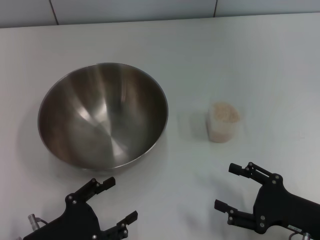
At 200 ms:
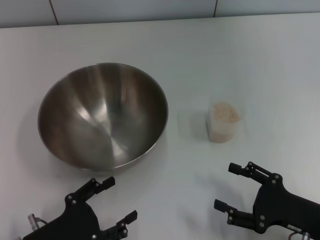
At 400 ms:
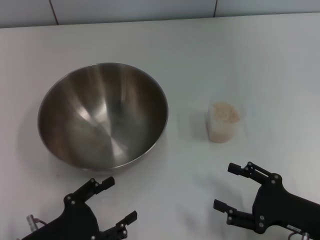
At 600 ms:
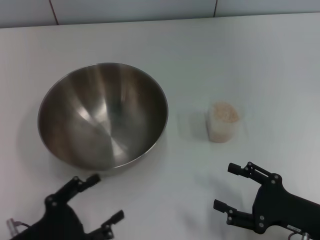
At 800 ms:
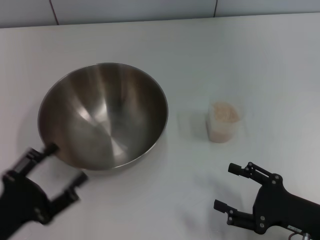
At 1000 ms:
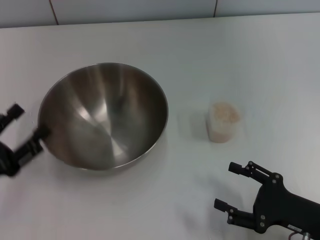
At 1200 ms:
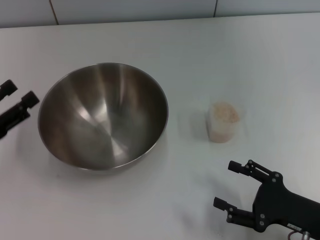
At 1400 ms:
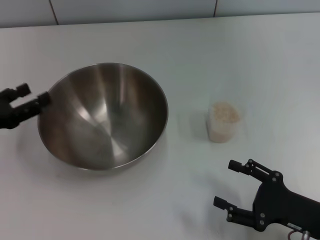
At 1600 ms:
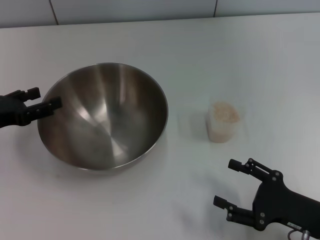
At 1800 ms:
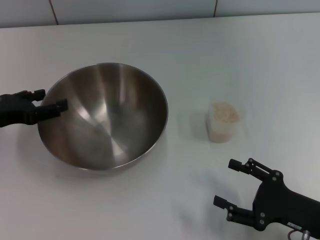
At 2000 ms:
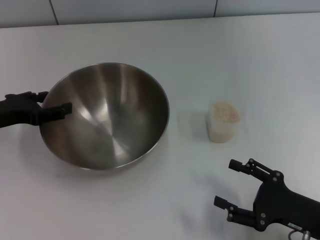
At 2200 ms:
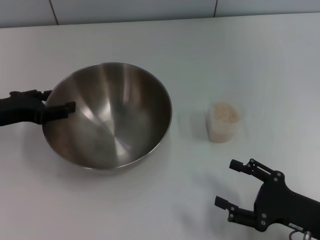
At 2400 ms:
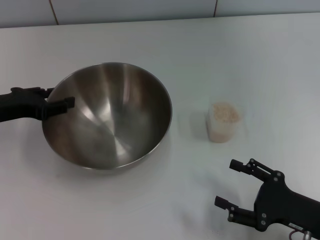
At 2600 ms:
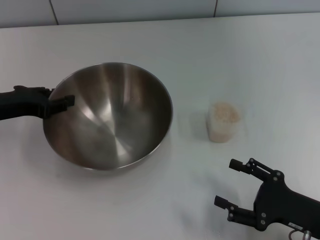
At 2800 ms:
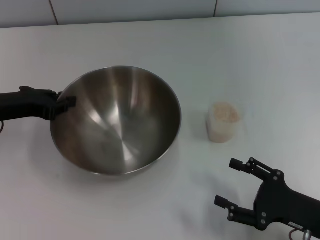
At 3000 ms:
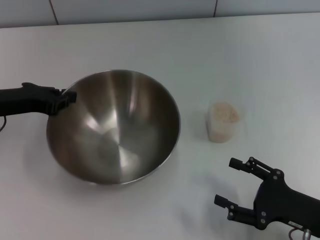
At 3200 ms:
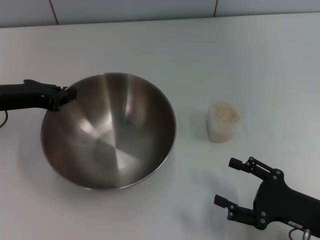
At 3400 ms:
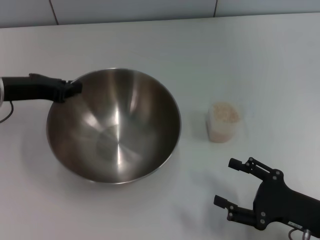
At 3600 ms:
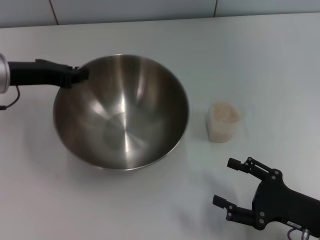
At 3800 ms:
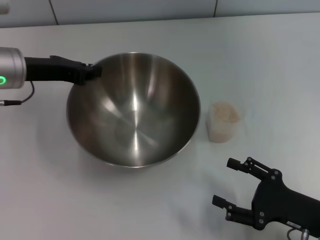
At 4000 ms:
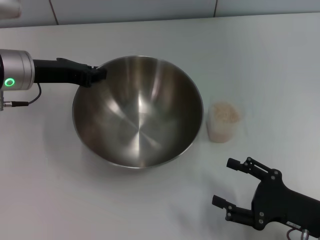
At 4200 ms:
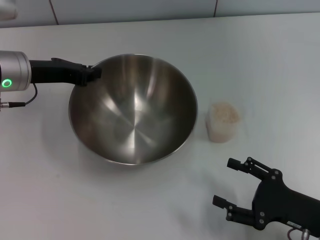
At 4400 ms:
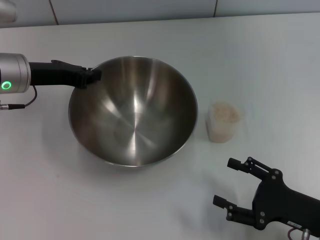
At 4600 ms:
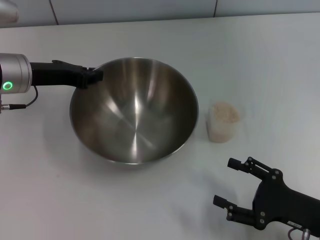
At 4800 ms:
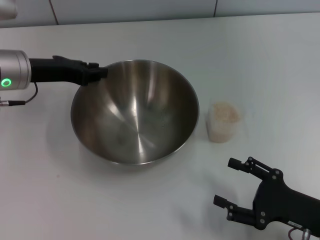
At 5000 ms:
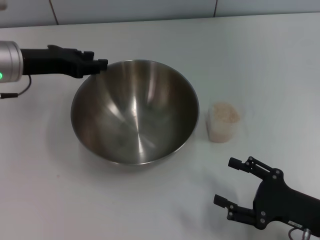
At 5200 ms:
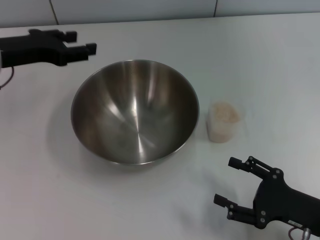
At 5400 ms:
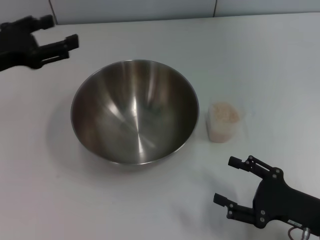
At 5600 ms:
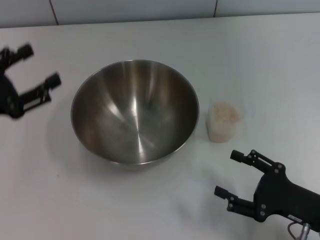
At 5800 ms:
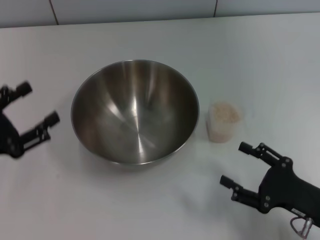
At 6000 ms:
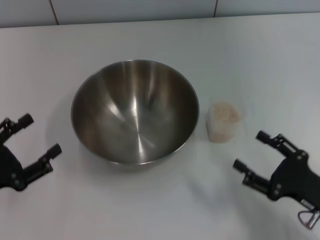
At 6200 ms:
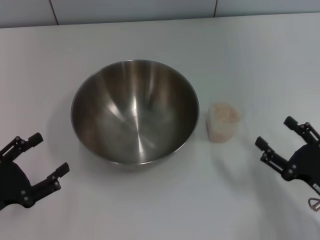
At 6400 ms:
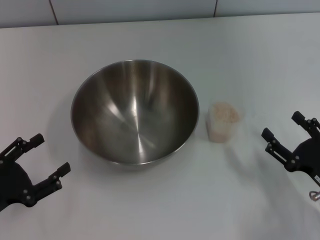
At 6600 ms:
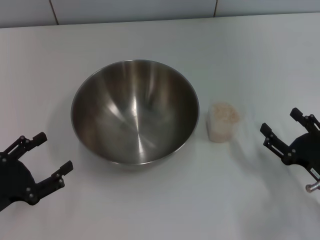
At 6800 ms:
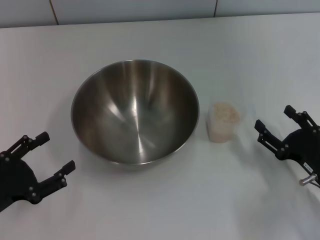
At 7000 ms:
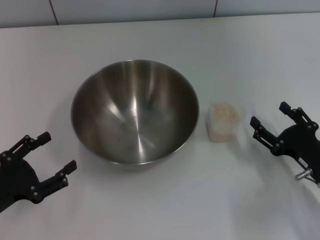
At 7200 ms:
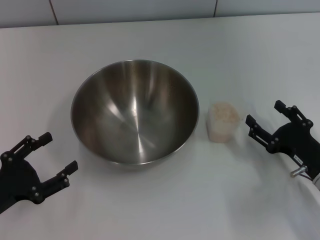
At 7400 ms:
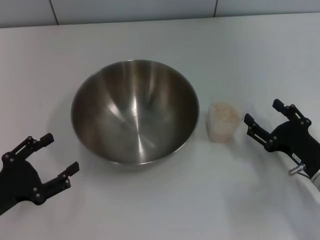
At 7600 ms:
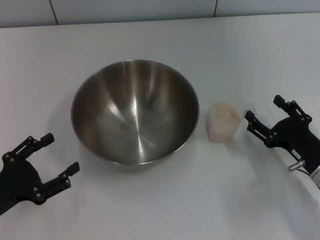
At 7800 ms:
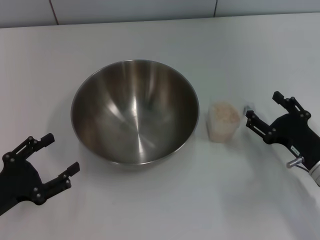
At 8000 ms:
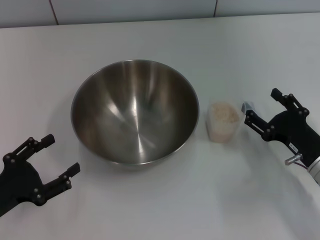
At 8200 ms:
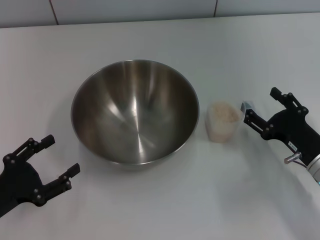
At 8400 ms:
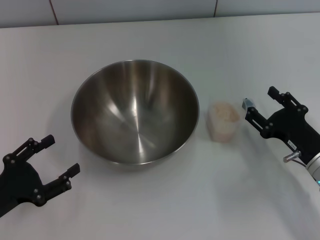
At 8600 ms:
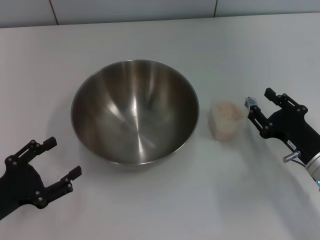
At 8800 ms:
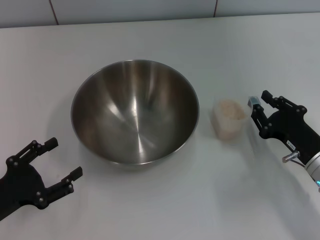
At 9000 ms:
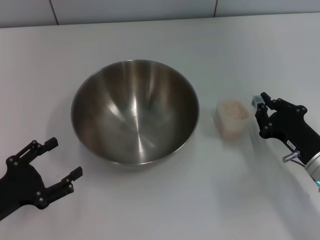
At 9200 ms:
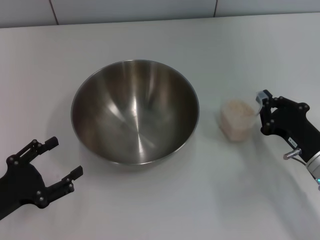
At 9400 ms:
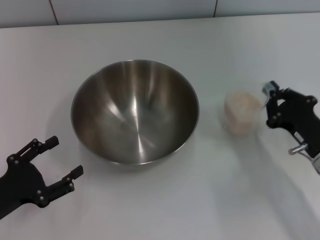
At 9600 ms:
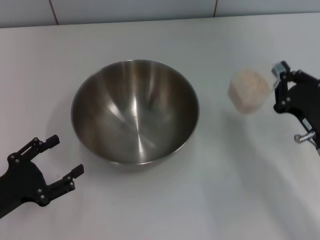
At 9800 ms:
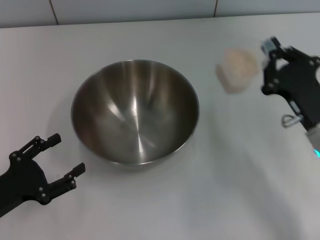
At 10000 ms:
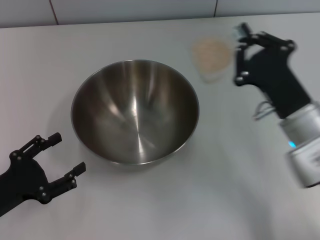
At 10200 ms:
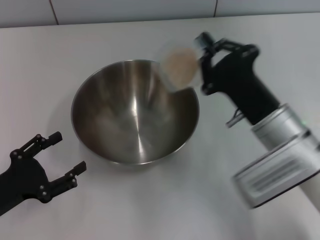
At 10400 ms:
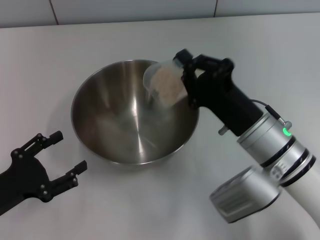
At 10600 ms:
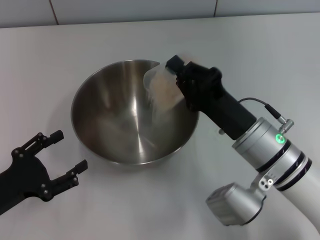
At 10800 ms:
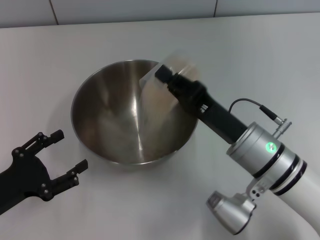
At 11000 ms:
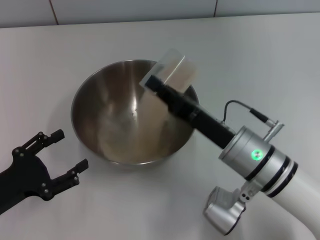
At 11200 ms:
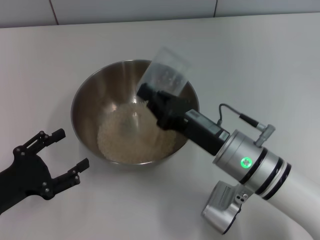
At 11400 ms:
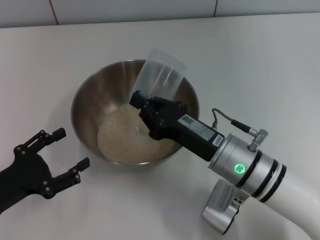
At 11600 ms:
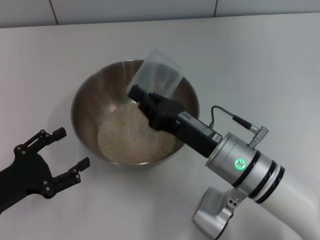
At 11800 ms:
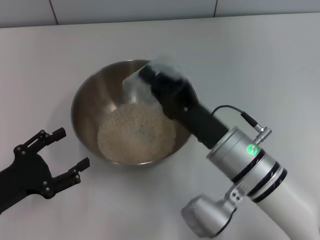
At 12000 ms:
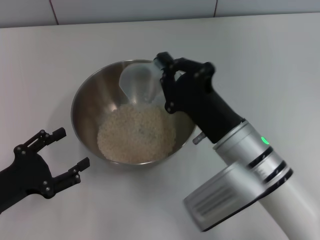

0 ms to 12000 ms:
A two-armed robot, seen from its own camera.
Task of the whole recording: Place the bowl in the middle of the table with one hand and pour the rice from the grain cup into it with the other hand.
Step, 0 ms to 3400 ms: Pick up the bowl with the left gripper.
Step, 3600 ms to 5000 ms: Place the bowl in the center of view with the left gripper.
Step, 5200 ms to 9600 ms: Pick up the cup with rice in it with the right gripper.
0 ms to 1600 ms: The left gripper travels forward, upward and to the left by roughly 20 cm.
1600 ms to 3000 ms: The left gripper travels to the right and forward by some 5 cm, and closes.
3000 ms to 4400 ms: The left gripper ends up about 5 cm from where it was.
4400 ms to 6000 ms: The left gripper heads backward, to the left and downward, covering roughly 25 cm, and opens up.
6000 ms to 7600 ms: The right gripper goes some 5 cm forward.
7600 ms to 9000 ms: The right gripper closes its fingers.
9000 ms to 10400 ms: The right gripper heads to the left and upward, covering roughly 10 cm, and closes its fingers.

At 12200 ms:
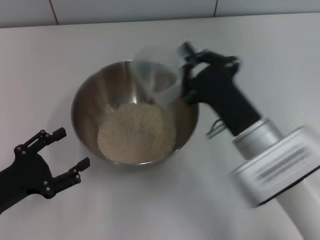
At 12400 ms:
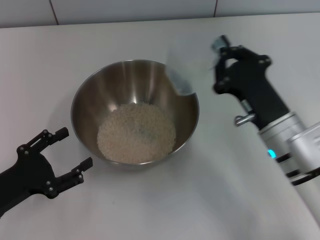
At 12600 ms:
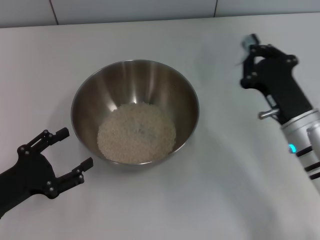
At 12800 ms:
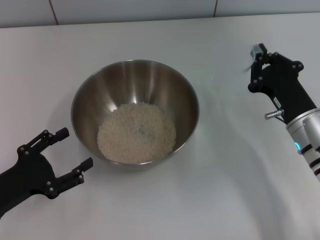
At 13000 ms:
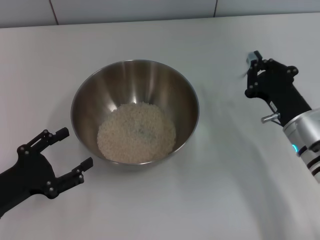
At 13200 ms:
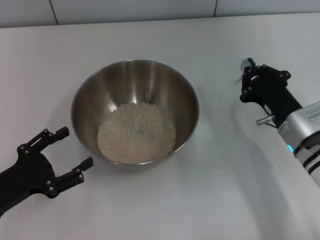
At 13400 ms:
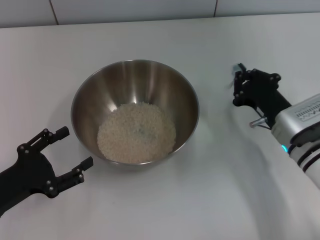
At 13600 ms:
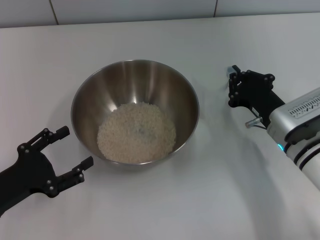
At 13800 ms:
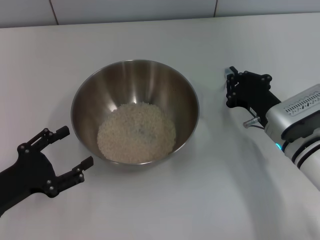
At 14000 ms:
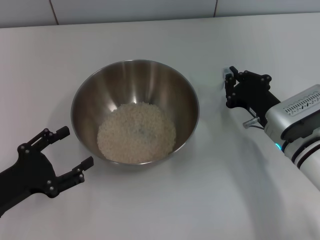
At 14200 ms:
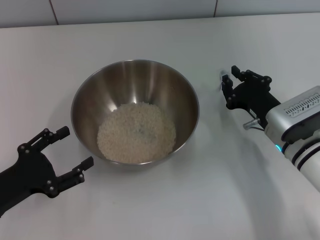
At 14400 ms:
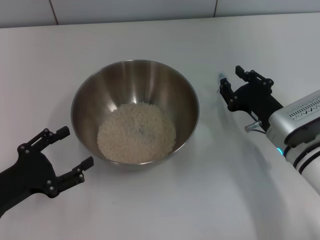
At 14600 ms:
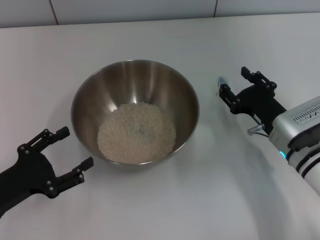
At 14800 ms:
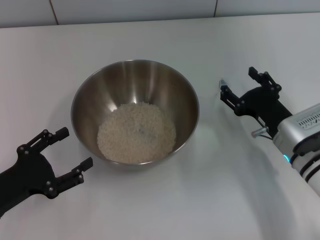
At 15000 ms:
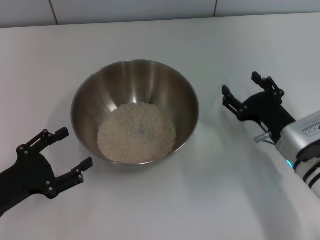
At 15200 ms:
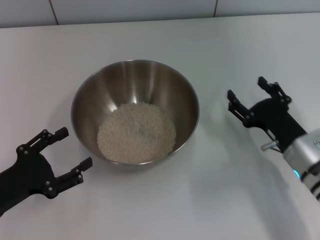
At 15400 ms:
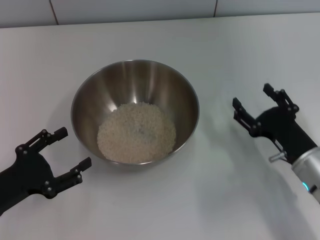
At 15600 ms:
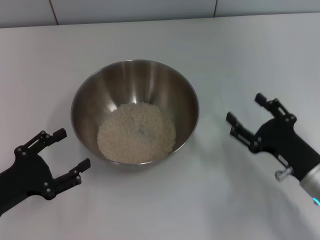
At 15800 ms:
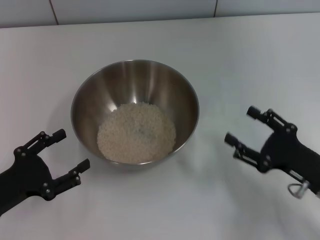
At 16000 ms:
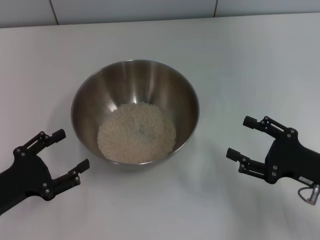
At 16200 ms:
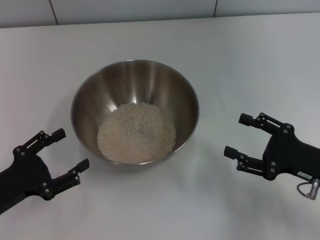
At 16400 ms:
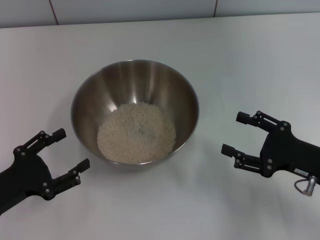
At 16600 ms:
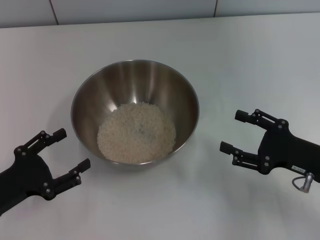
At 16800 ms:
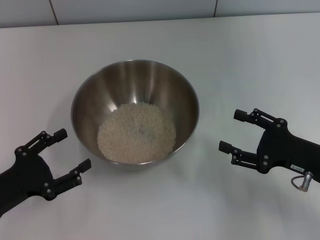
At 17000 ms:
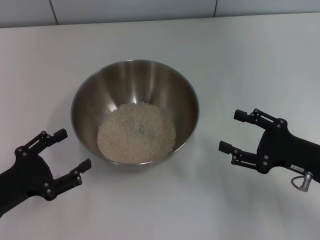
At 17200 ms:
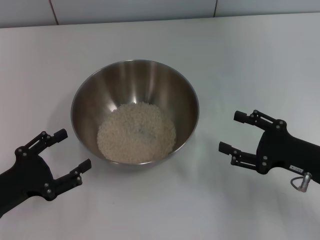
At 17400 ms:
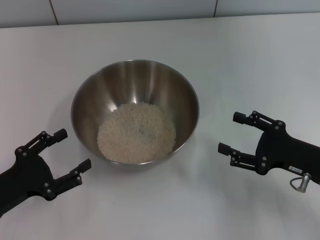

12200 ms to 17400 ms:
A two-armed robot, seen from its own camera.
Task of the whole recording: Place the bowl in the middle of the table with one hand and pour the rice from the grain cup into it with the other hand.
Step, 12400 ms to 15200 ms: Place the cup on the table with the right gripper.
12200 ms to 14000 ms: The right gripper heads to the right, forward and downward, covering some 10 cm.
14000 ms to 15600 ms: The right gripper heads backward, covering roughly 10 cm, and opens its fingers.
